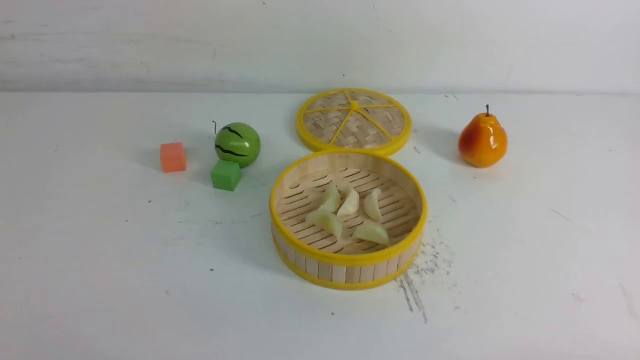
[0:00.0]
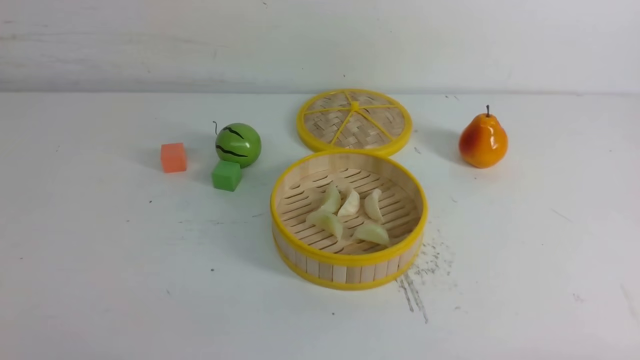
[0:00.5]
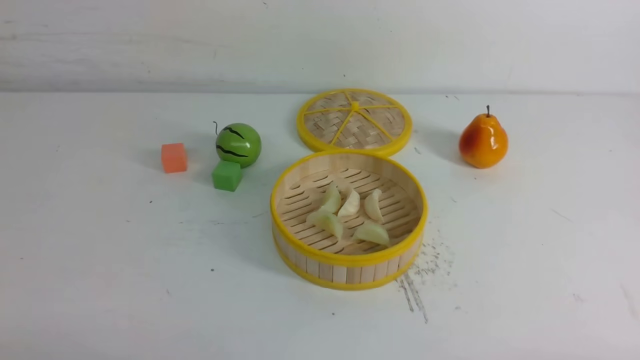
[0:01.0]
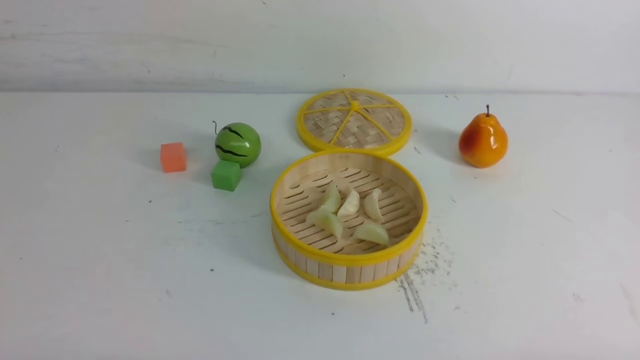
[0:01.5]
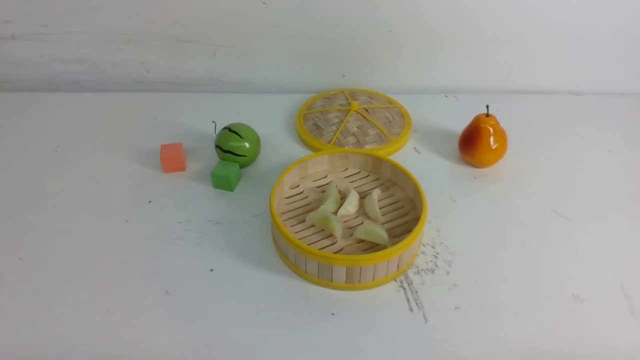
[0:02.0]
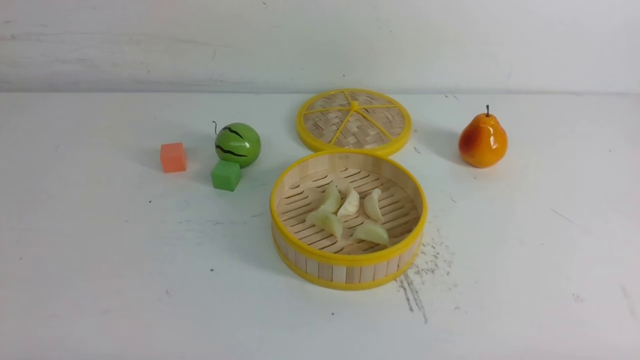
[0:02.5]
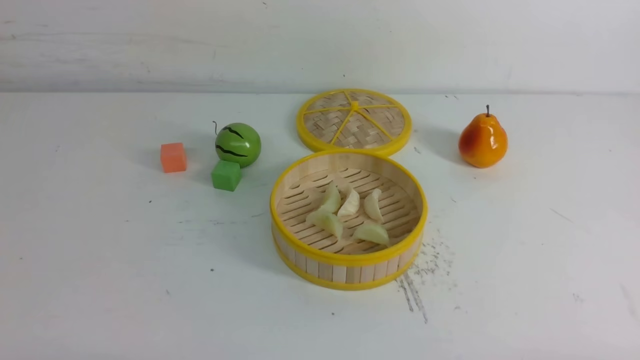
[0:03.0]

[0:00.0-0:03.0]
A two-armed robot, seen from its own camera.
Task of the whole recording: put the dumplings into the steamer on the white table.
0:01.5 to 0:03.0: Both grippers stay put.

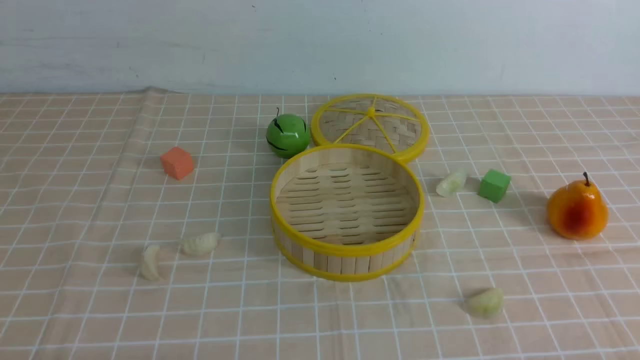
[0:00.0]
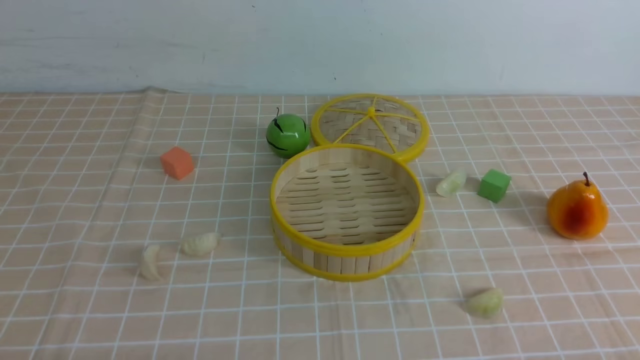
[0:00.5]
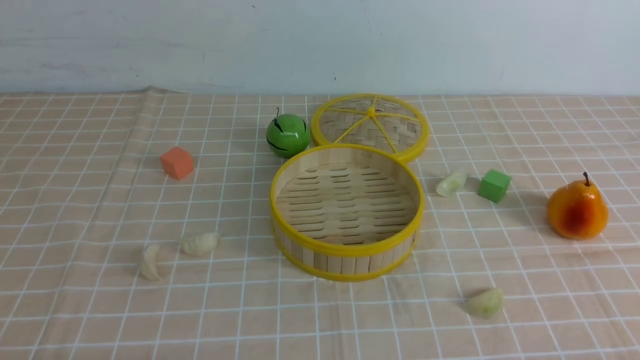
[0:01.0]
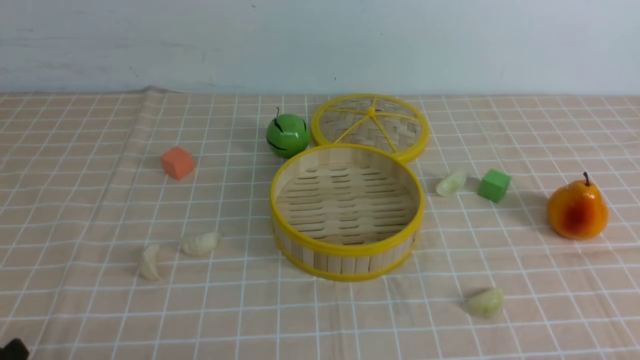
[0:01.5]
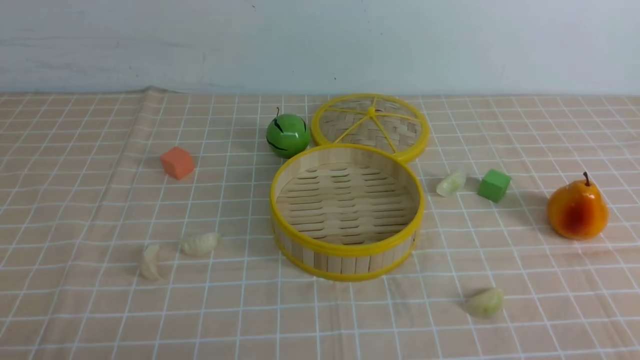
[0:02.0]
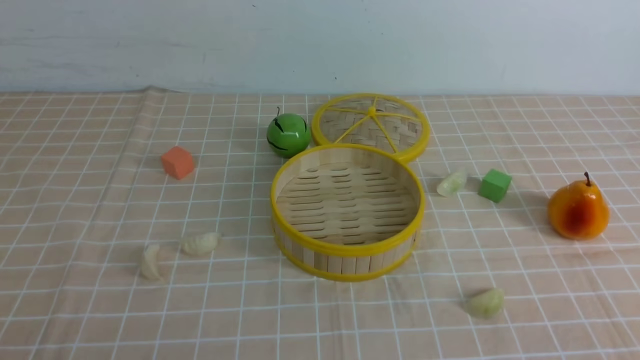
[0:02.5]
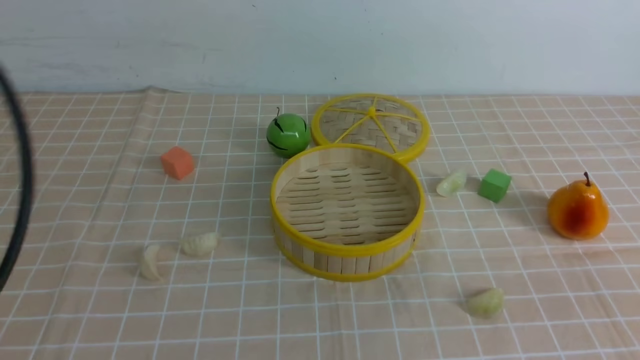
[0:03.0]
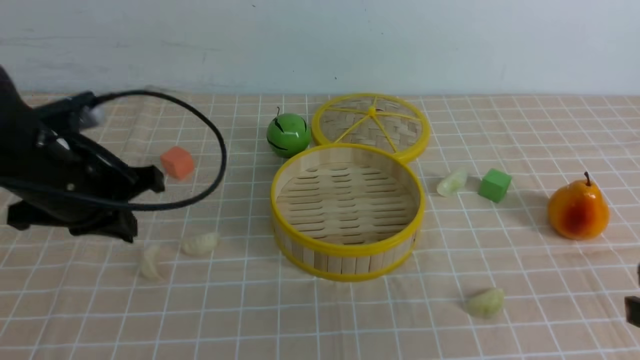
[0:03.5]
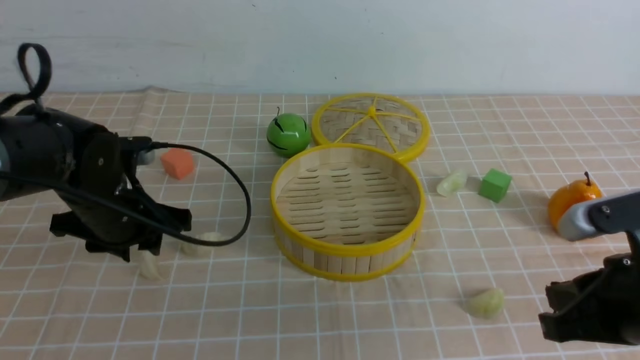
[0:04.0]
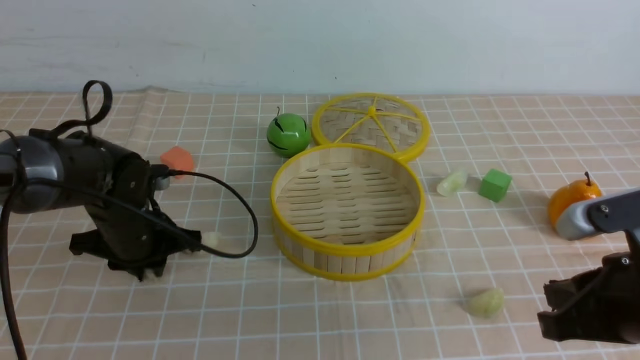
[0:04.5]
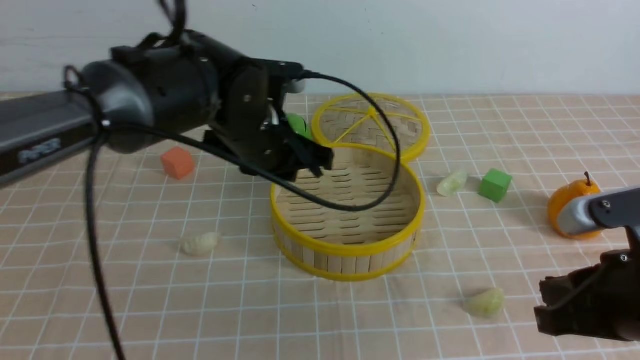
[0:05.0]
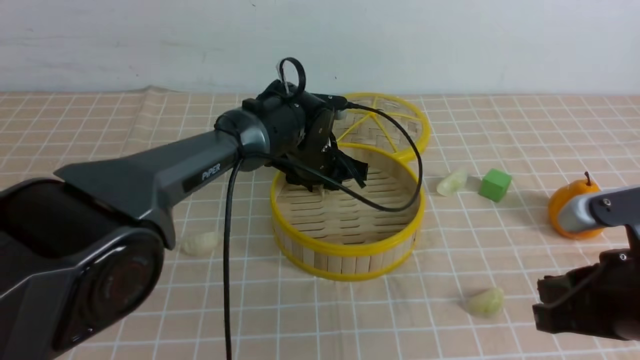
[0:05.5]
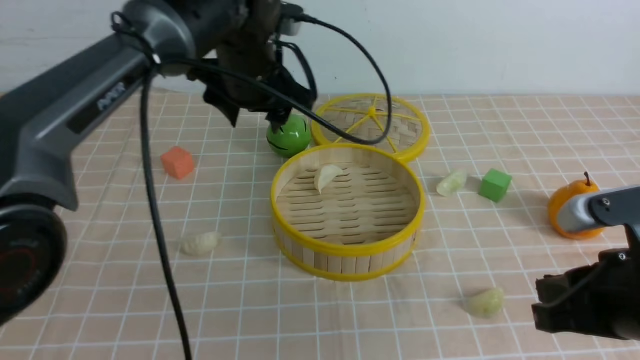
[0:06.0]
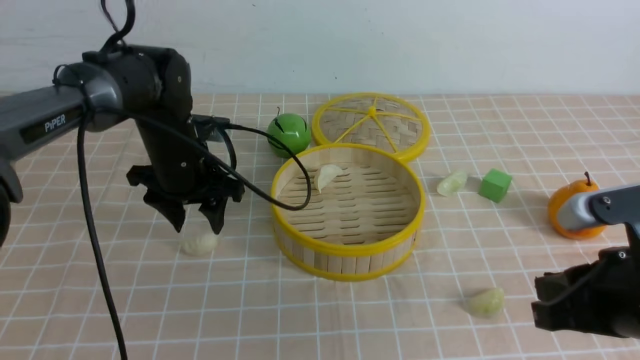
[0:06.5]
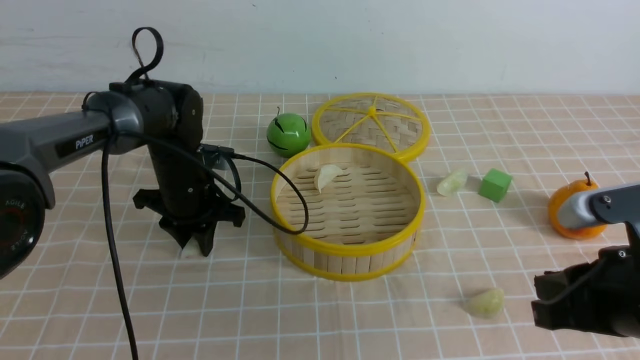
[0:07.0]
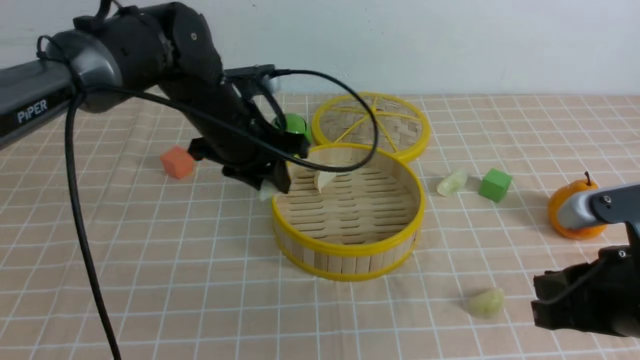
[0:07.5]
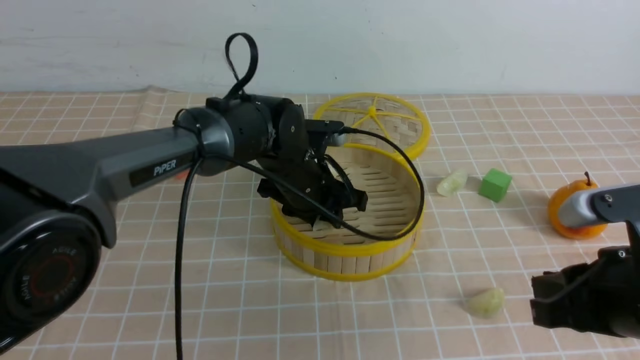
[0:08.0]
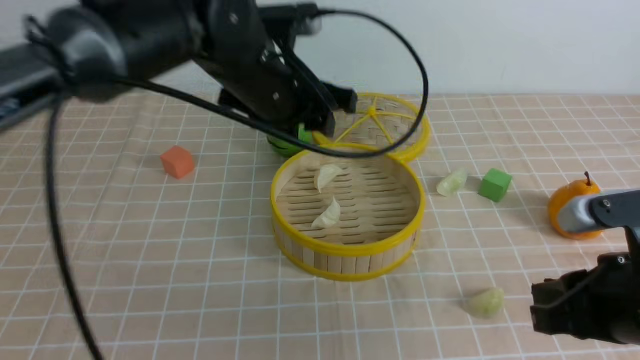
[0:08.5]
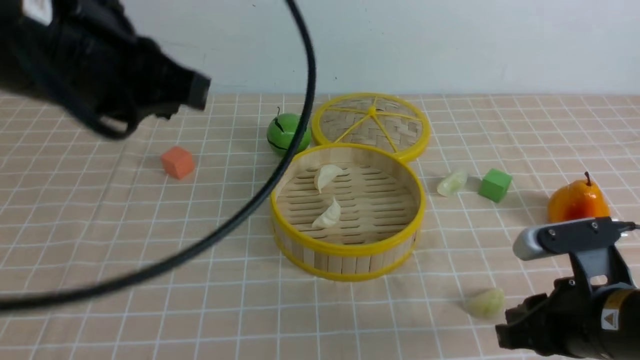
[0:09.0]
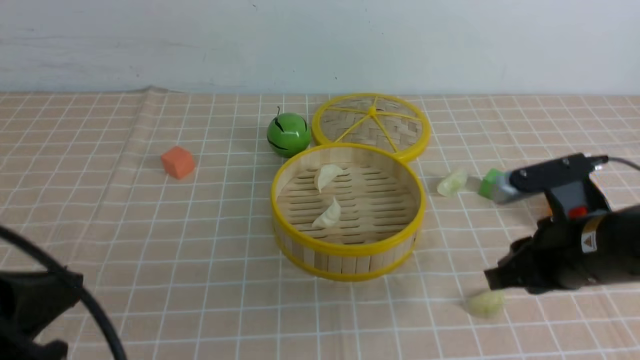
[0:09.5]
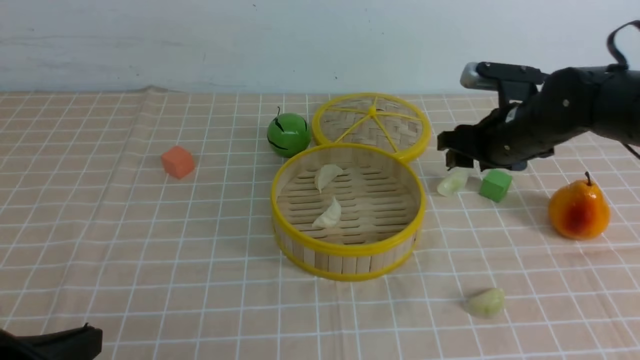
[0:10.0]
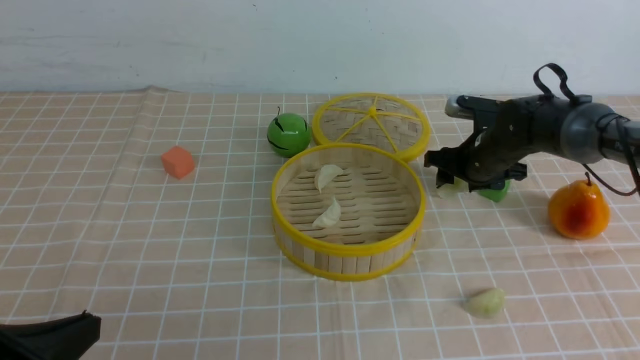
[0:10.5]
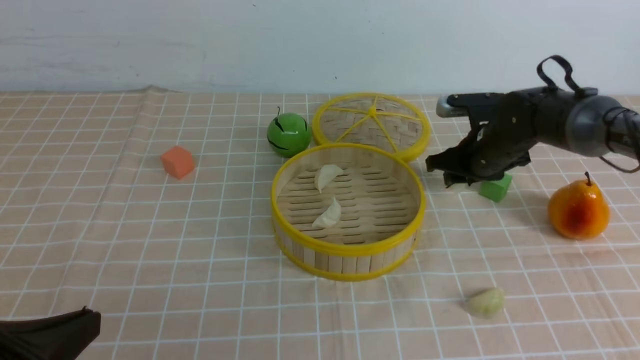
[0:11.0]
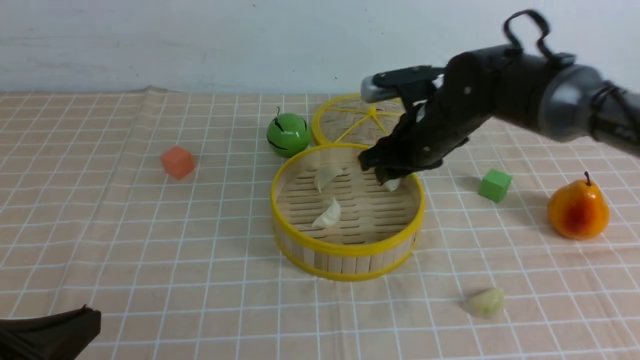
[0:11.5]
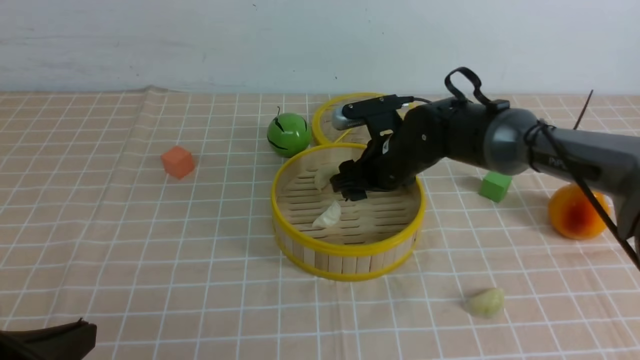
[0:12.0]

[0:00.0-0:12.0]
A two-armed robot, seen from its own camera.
Task of the whole recording: put the dumplings into the steamer on the table with the brown tablecloth.
Step, 0:00.0 to 0:04.0: use the left arm to grab a dumpling.
Step, 0:04.5 to 0:05.5: use the left arm to put the dumpling into the steamer.
Step, 0:06.0 to 0:07.0: use the left arm to grab a dumpling.
Step, 0:07.5 to 0:08.0: use the left arm to put the dumpling into the steamer.
Step, 0:08.5 to 0:10.5: use the right arm to grab a dumpling.
0:02.0 to 0:04.0: The right gripper is displaced forward and to the left by roughly 15 cm, and closes, while the left gripper is displaced forward by approximately 30 cm, and closes, then opens again.
0:04.0 to 0:06.0: The left gripper travels to the right, upward and forward by about 20 cm, and opens up.
0:06.0 to 0:08.0: The left gripper travels downward and to the right by some 10 cm.
0:08.0 to 0:10.0: The left gripper moves backward and to the left, approximately 40 cm, and closes its fingers; the right gripper is displaced forward by approximately 25 cm, and opens up.
0:10.0 to 0:12.0: The right gripper shifts about 10 cm to the left.

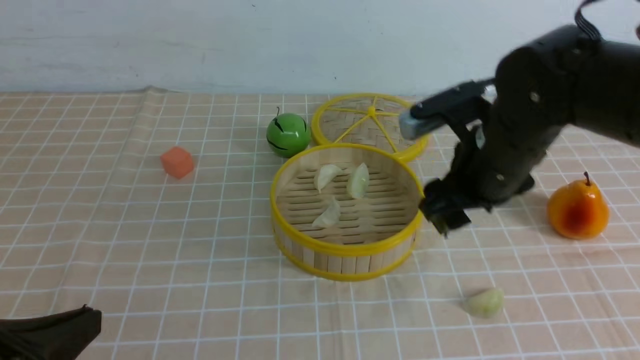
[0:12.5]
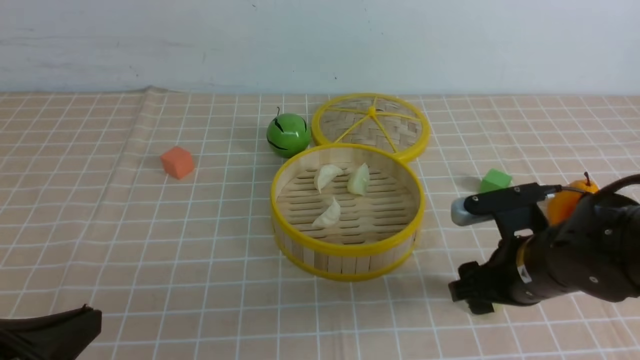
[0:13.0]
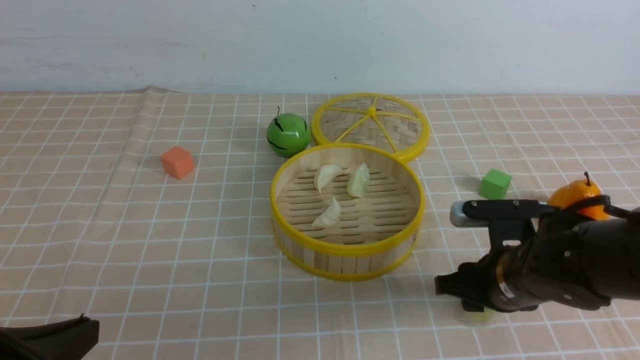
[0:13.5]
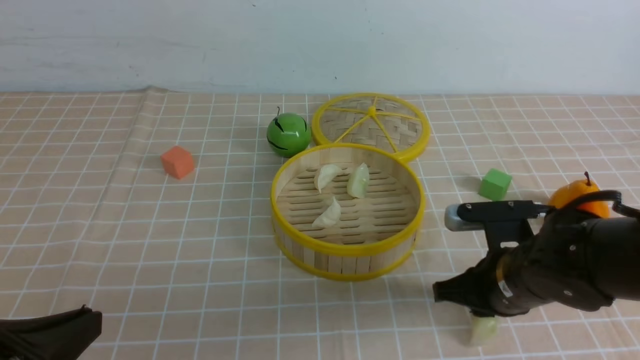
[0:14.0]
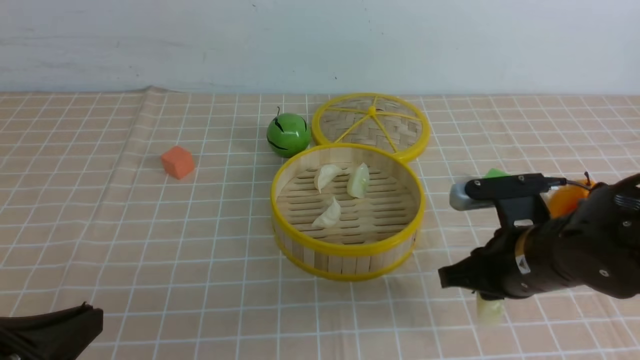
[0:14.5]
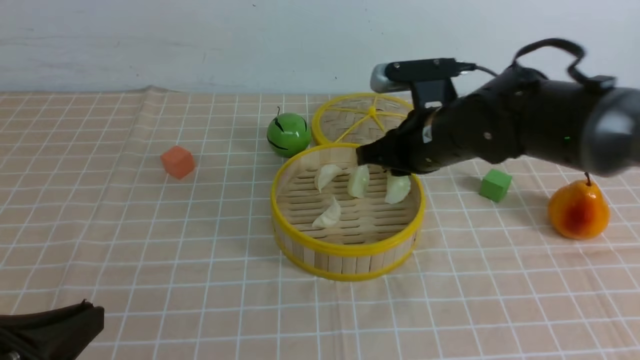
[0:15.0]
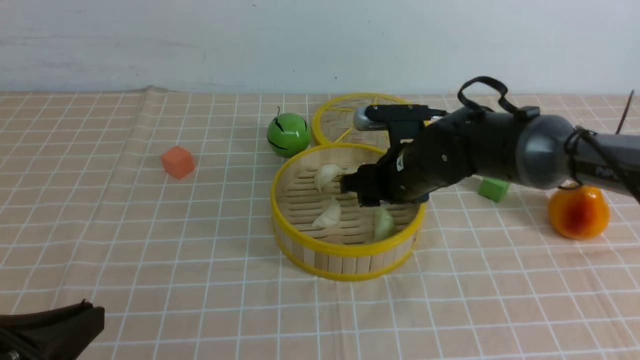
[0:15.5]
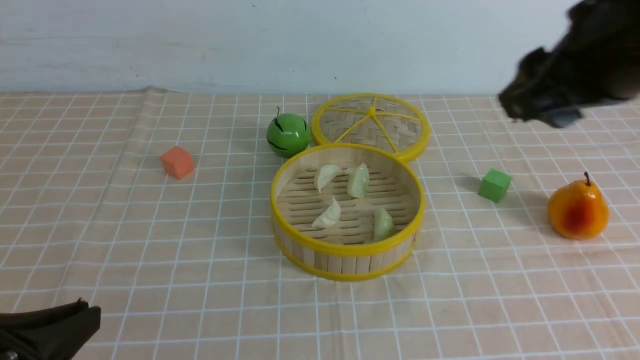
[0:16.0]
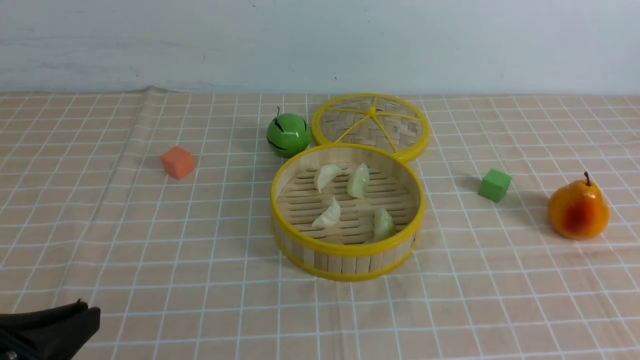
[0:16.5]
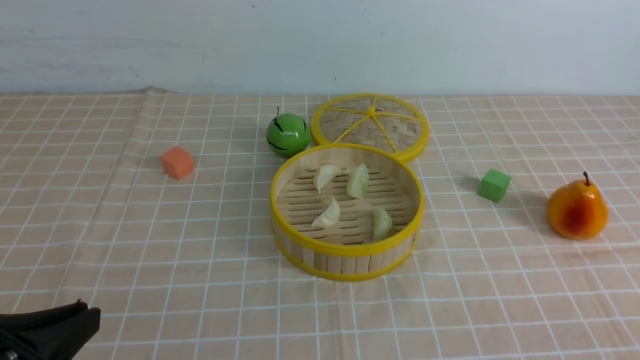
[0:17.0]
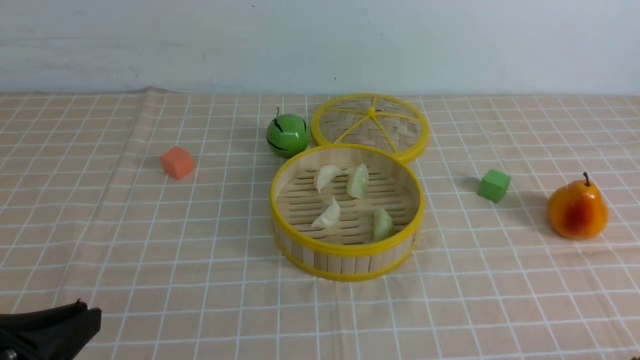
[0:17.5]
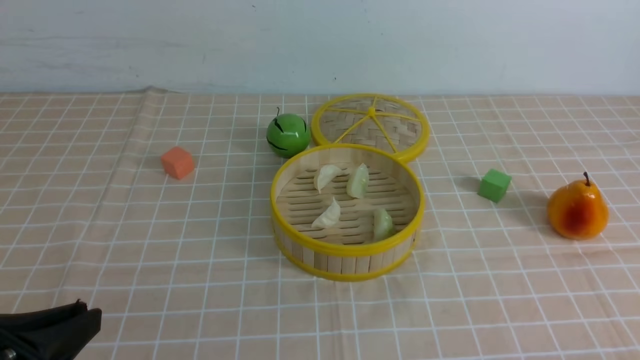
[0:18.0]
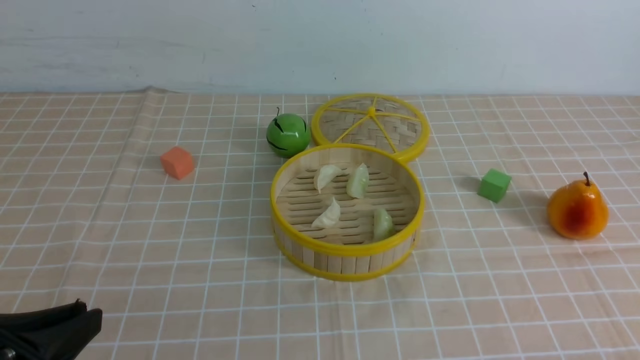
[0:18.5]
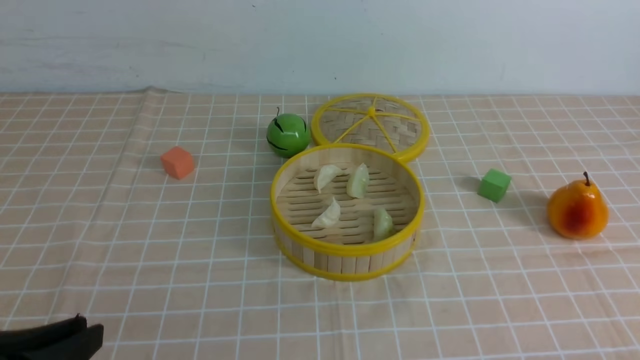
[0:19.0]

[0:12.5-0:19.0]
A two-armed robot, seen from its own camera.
Task of the whole recording: put the dumplings into the steamer on the table with the brown tablecloth.
Step, 0:12.5 to 0:13.5: use the right arm to grab a dumpling.
Step, 0:14.5 to 0:15.5: use the right arm to put the dumpling into the steamer.
0:12.5 to 0:14.5: The right gripper travels backward by some 5 cm, moves about 10 cm downward and comes back, and closes its fingers.
0:14.5 to 0:17.0: The right gripper goes approximately 25 cm backward and to the right, and opens and closes again.
